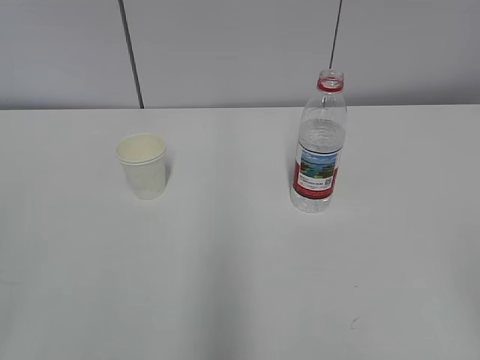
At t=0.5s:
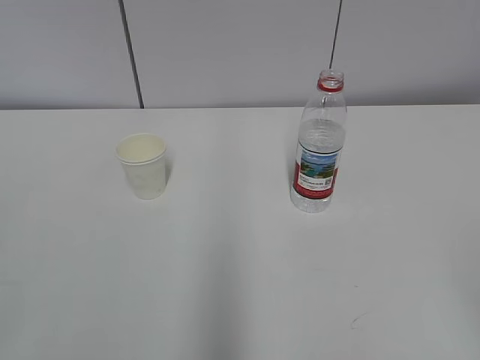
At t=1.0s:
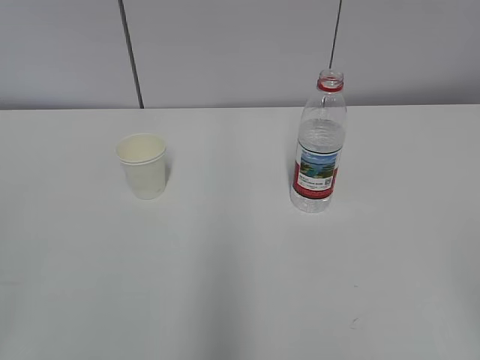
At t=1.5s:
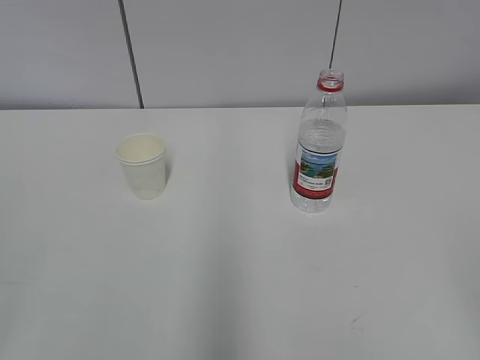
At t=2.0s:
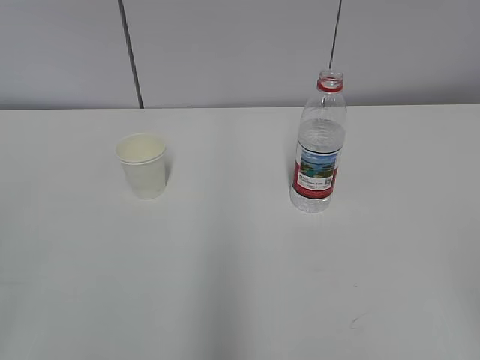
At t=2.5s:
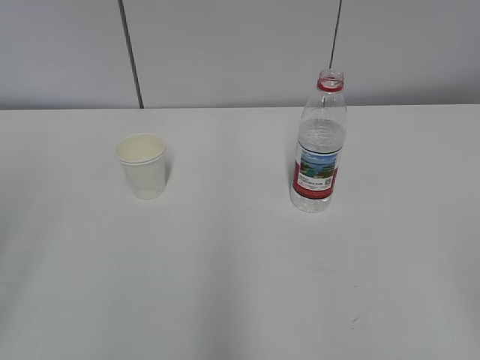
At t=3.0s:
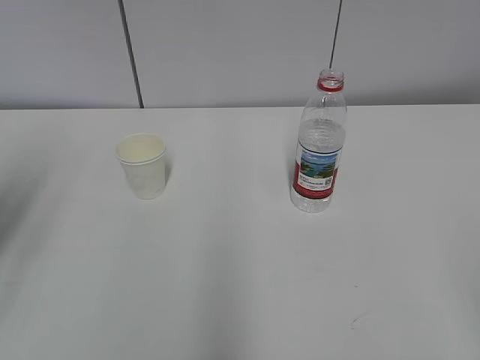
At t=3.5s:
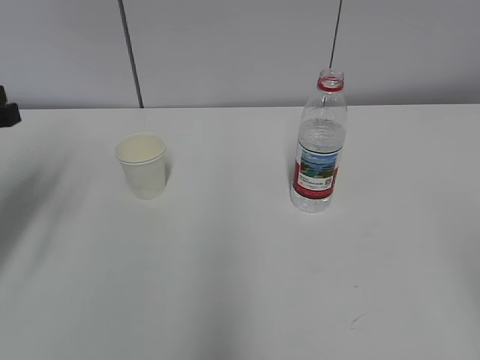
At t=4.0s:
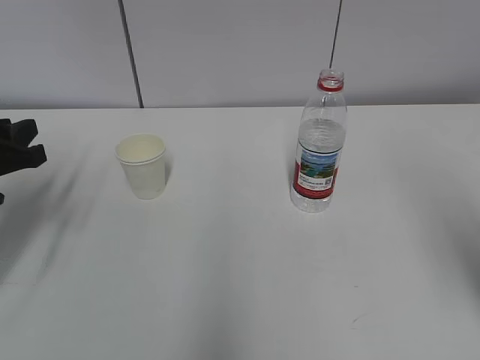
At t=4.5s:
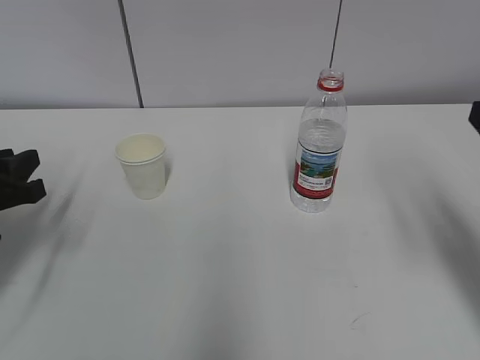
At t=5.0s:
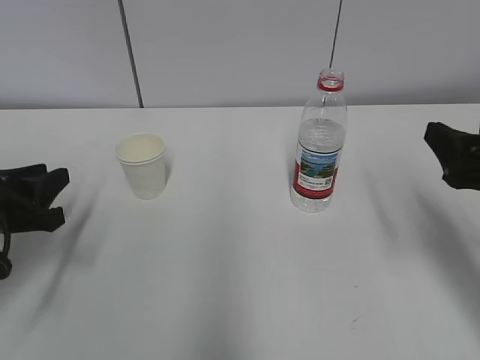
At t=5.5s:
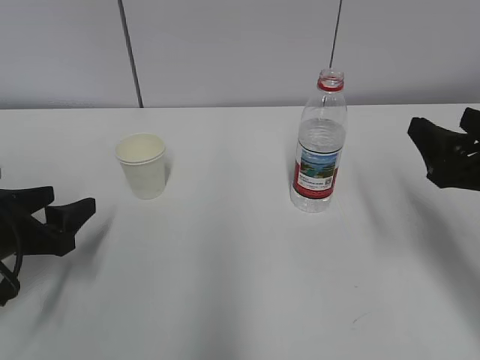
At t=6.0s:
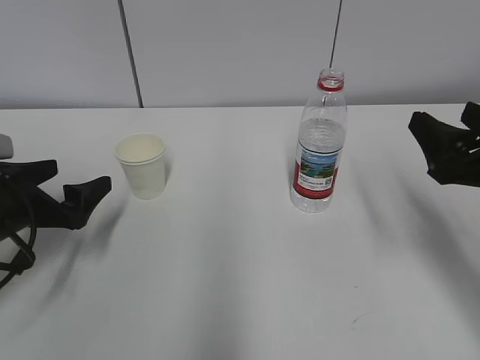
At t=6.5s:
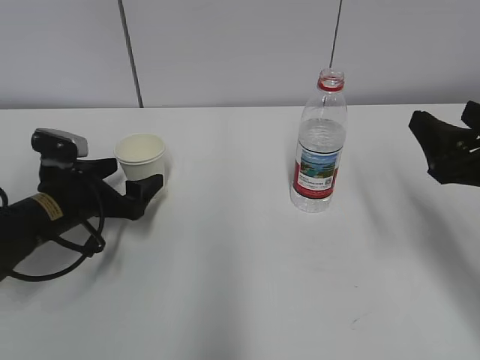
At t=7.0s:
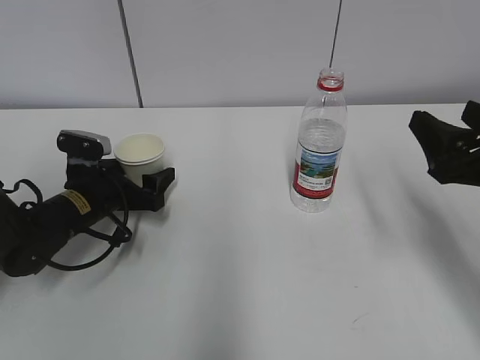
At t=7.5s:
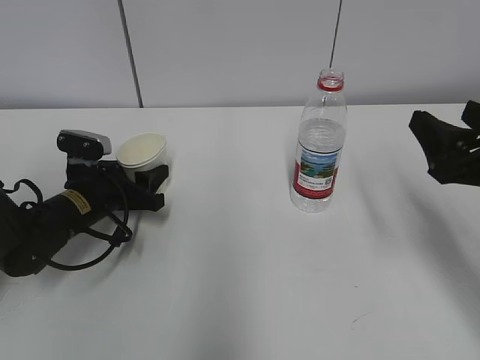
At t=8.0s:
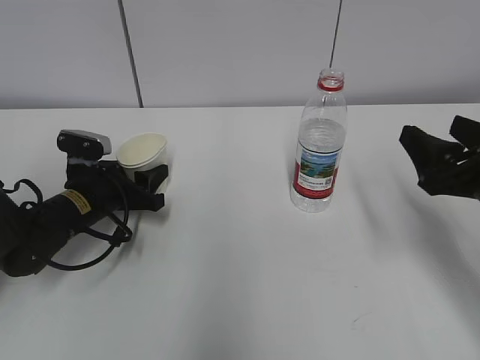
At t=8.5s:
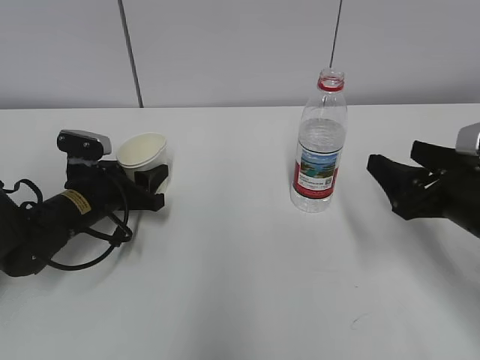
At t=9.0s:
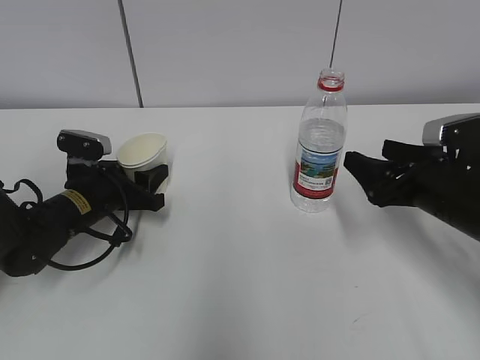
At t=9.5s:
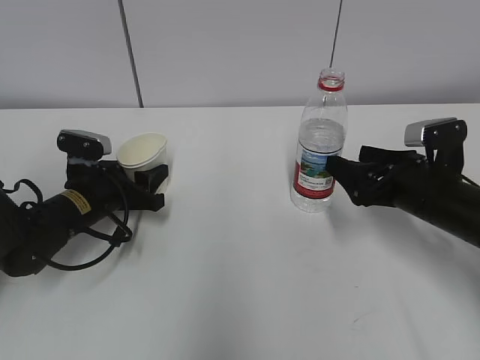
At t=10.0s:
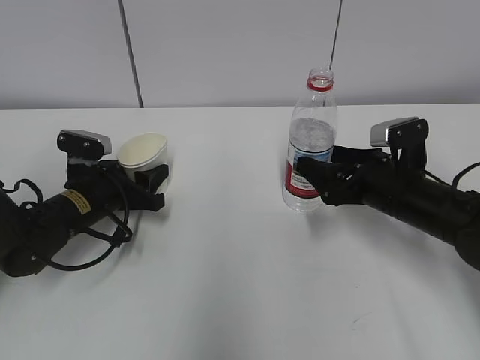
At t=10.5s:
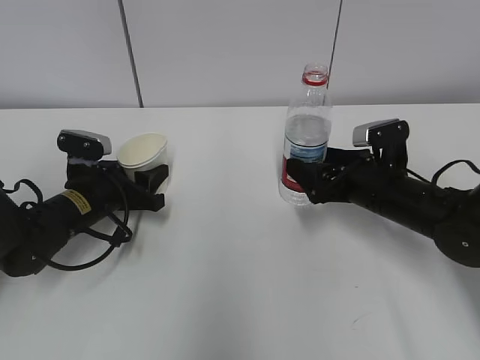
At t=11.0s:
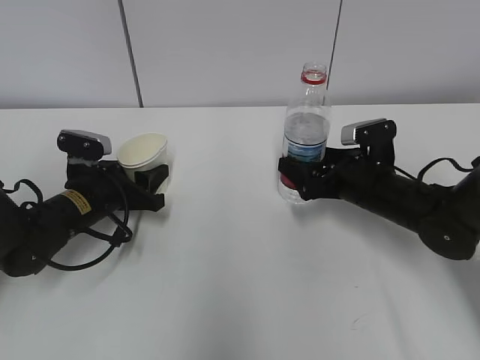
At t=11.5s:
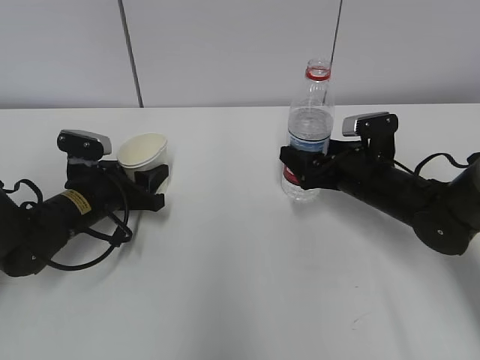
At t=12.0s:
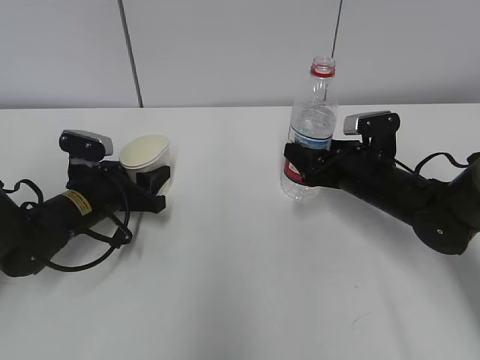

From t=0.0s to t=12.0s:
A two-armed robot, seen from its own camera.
Step, from t=0.0s to t=9.5s: Grab the paper cup with the left hand.
Step, from t=10.0s to t=10.5s: Grab the water bottle with the right hand.
From t=2.0s to t=4.0s: The right gripper heads forward, covering approximately 15 cm. Meanwhile the left gripper moves forward, roughly 30 cm.
From t=4.0s to t=6.0s: The right gripper shifts some 15 cm downward and forward. Meanwhile the left gripper moves downward, about 5 cm, and opens.
From t=6.0s to t=8.0s: The left gripper goes roughly 10 cm forward, to the right and downward, and closes its fingers.
From t=8.0s to t=10.0s: The right gripper shifts about 15 cm forward, downward and to the left.
From t=10.0s to t=12.0s: The right gripper moves some 5 cm, and closes up.

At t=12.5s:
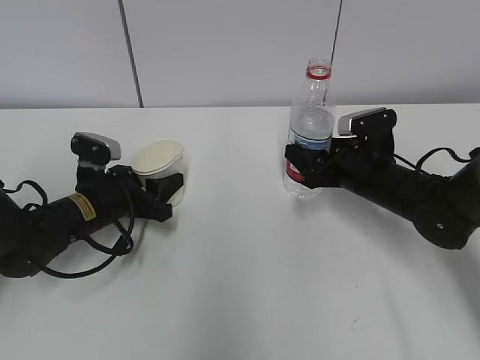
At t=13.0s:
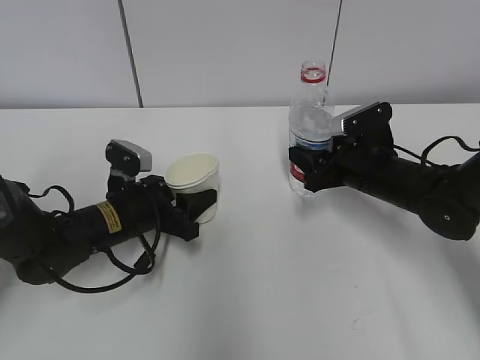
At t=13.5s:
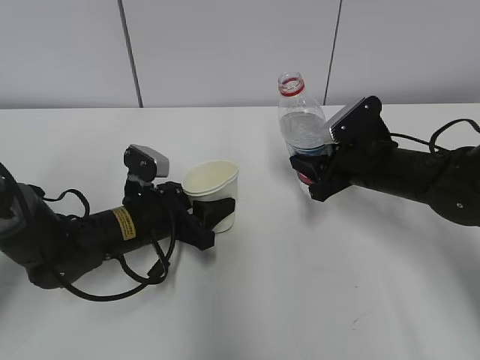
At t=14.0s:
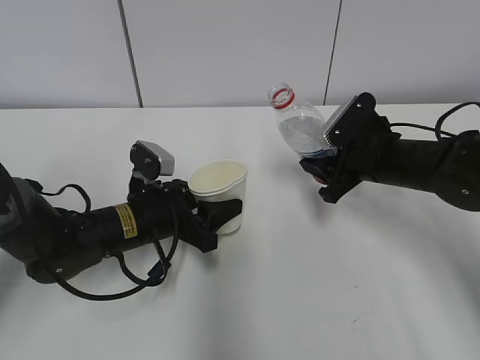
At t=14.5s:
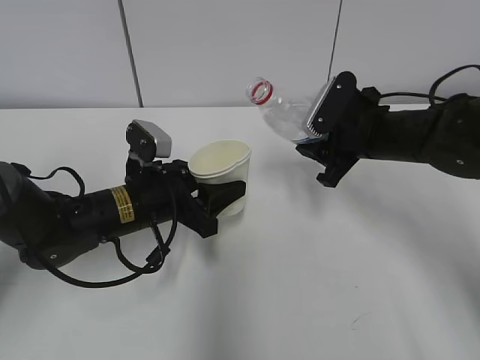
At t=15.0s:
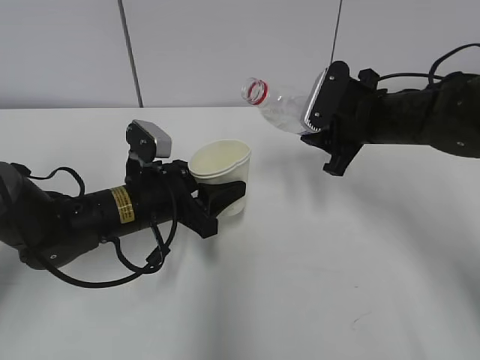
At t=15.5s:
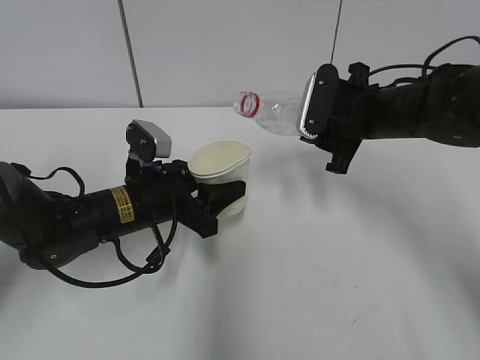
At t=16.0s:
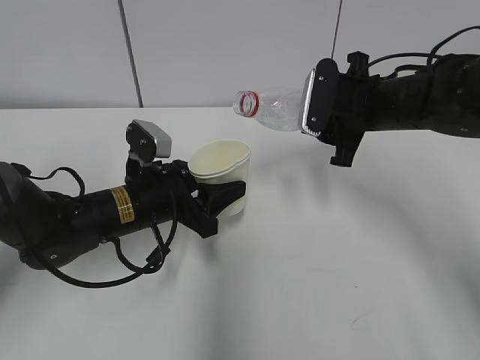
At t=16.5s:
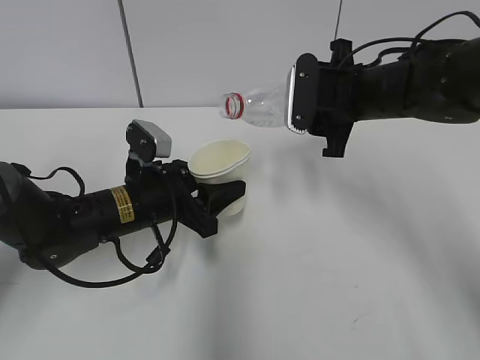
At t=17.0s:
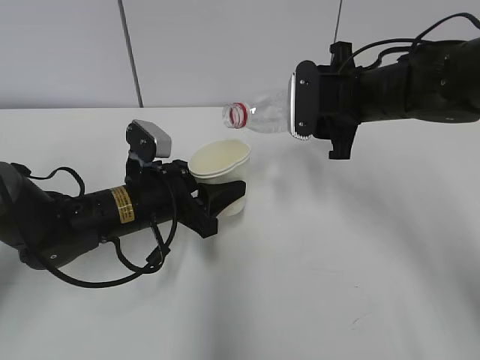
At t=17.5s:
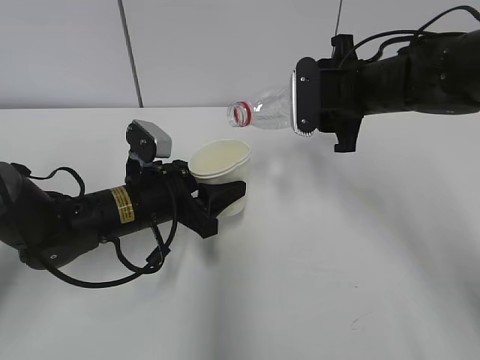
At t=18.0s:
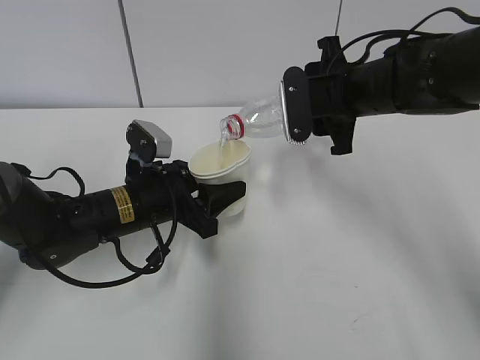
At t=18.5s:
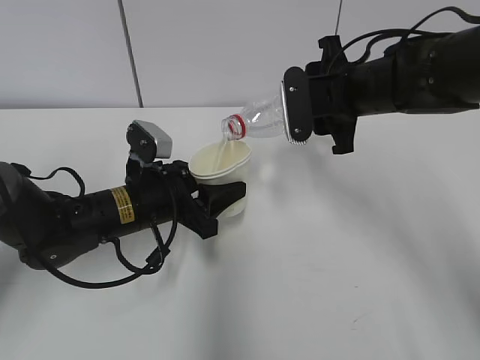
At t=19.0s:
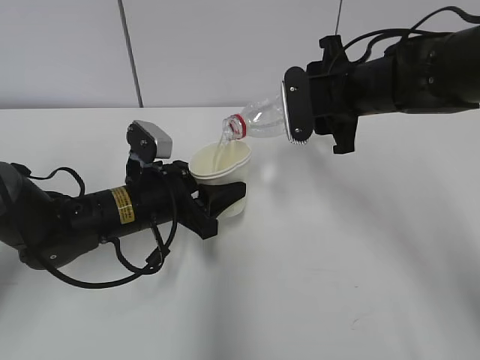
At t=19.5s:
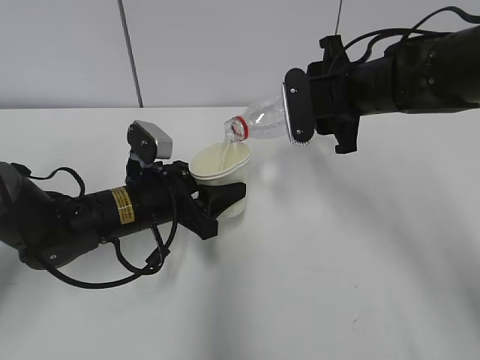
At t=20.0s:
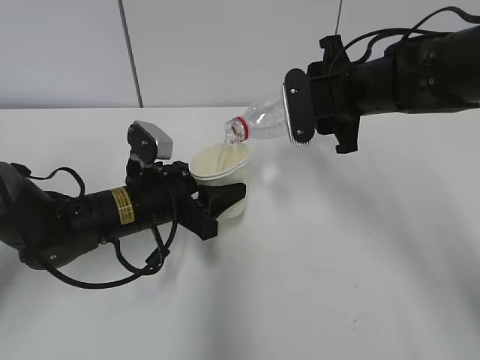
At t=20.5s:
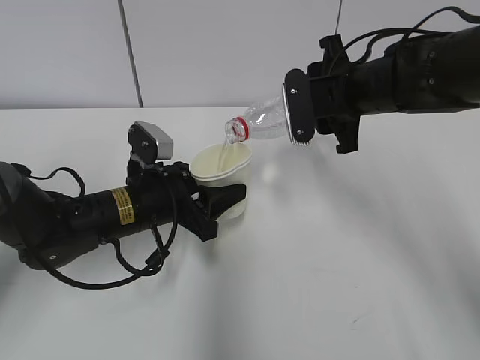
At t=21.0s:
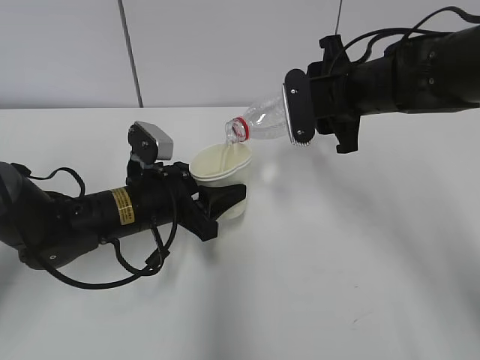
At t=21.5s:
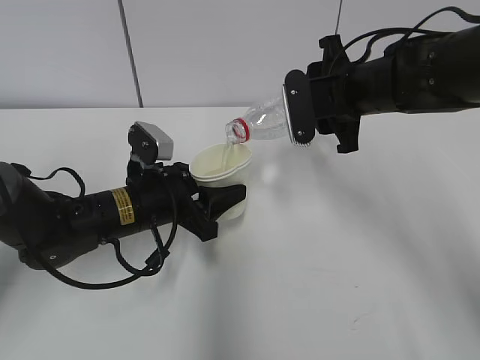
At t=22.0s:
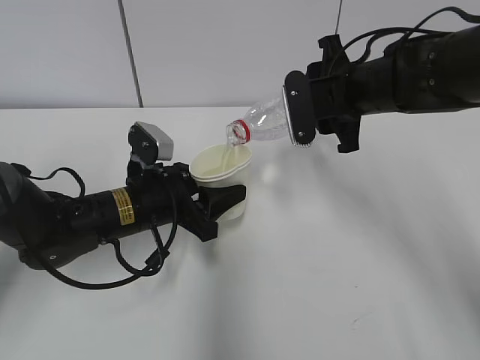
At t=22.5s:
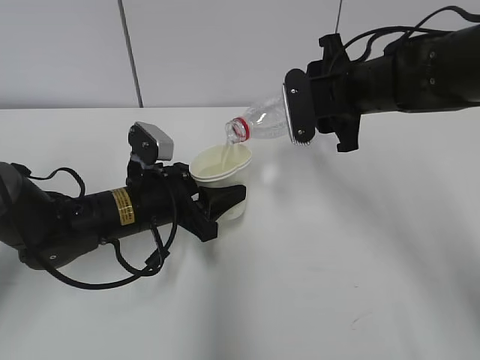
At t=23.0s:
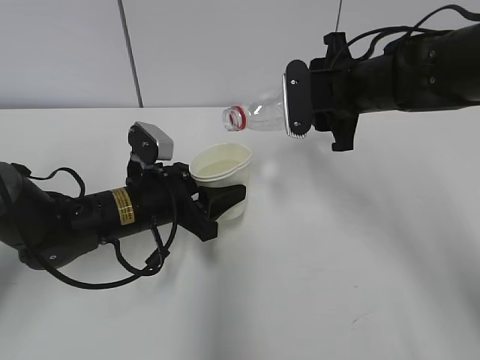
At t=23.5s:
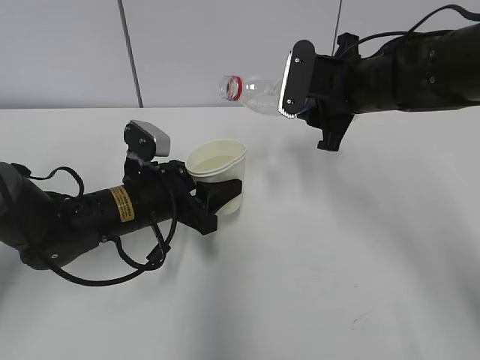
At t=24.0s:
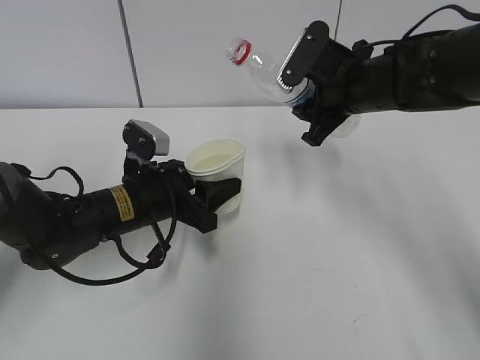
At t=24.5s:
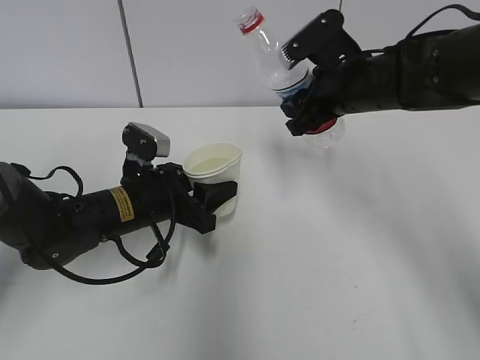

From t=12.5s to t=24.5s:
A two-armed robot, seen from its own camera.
Step, from t=12.5s to t=14.5s: Lift the paper cup with the left hand.
Step, from t=15.0s to t=19.0s: Pour water with the right hand.
Step, from t=21.0s to t=23.0s: Place the paper cup with the left hand.
From t=12.5s to t=14.5s: The right gripper moves upward, roughly 5 cm; the left gripper goes approximately 5 cm to the right.
From t=14.5s to t=16.5s: The right gripper moves upward, approximately 5 cm.
From t=16.5s to t=18.5s: There are only small adjustments of the grippers.
From t=18.5s to t=22.5s: Neither gripper changes place.

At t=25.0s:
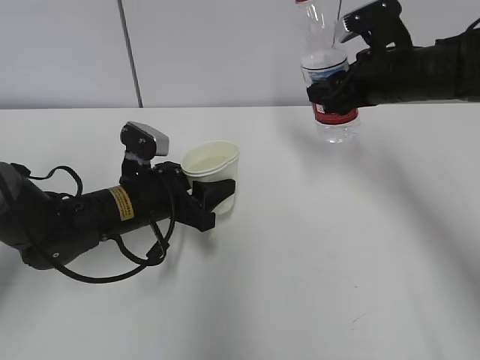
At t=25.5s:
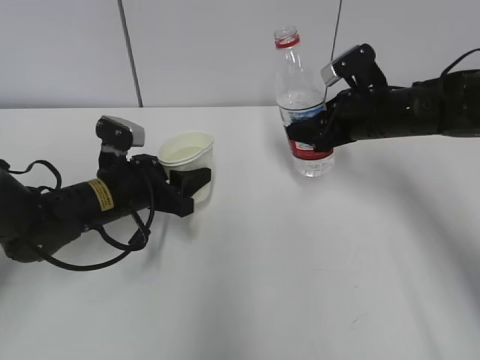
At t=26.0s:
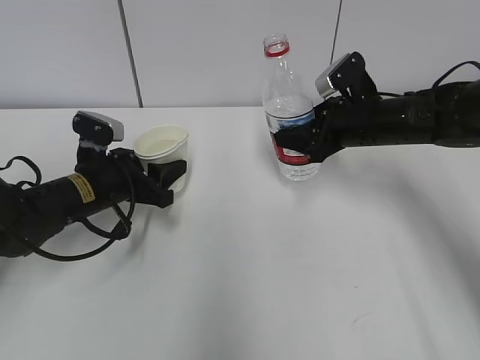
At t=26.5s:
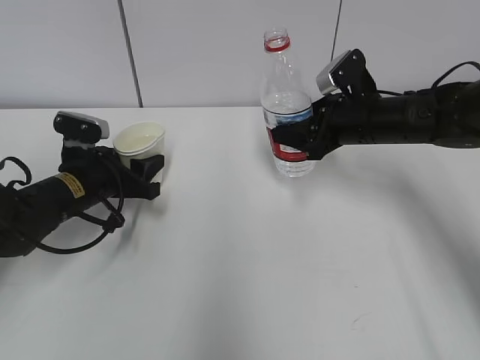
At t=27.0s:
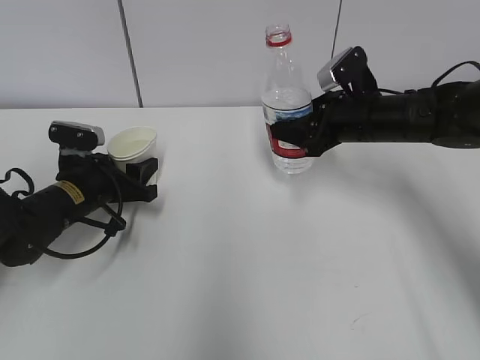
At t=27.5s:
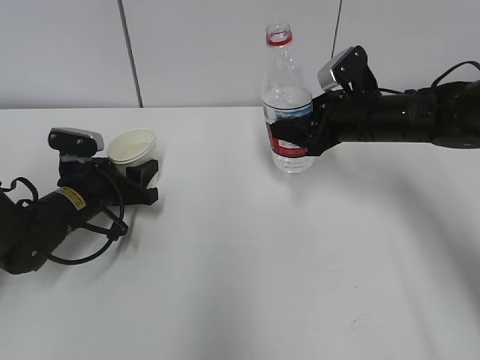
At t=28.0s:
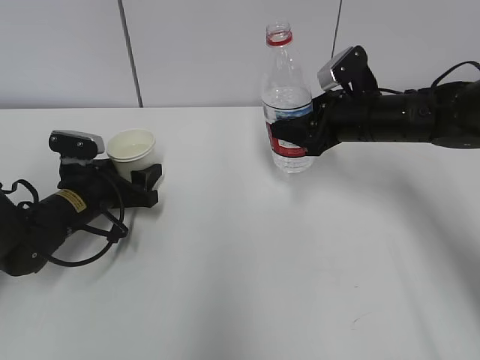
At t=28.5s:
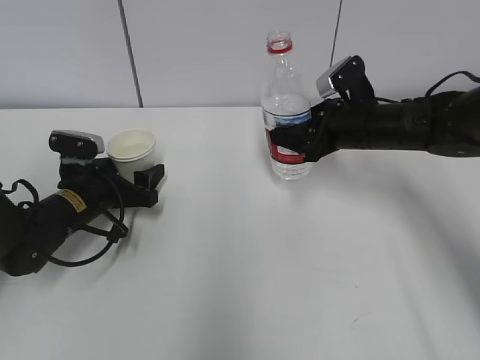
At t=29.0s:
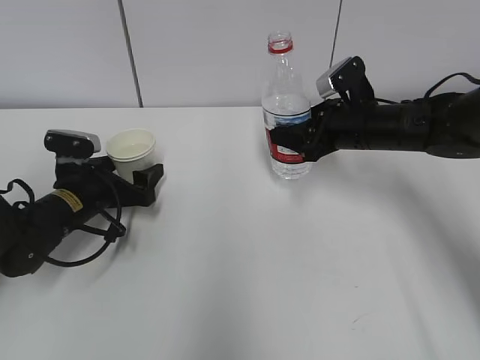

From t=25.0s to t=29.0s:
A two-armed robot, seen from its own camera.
From t=25.0s to t=27.0s: The right gripper moves downward, approximately 5 cm, while the left gripper heads to the left, covering about 10 cm.
From t=27.0s to t=29.0s: The left gripper opens up.
